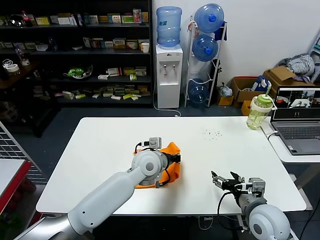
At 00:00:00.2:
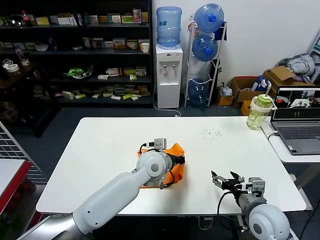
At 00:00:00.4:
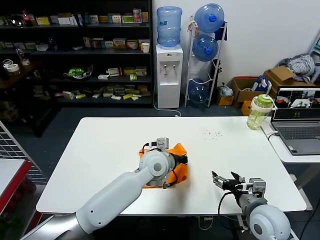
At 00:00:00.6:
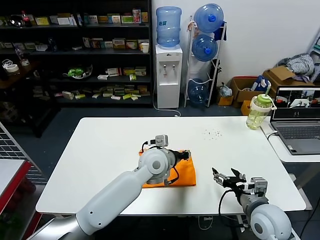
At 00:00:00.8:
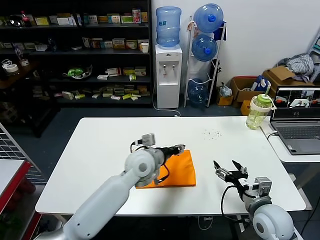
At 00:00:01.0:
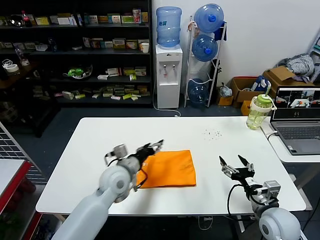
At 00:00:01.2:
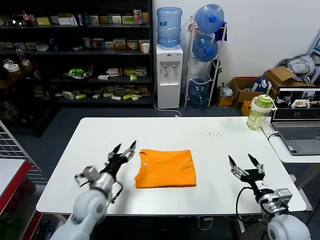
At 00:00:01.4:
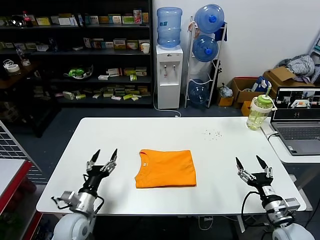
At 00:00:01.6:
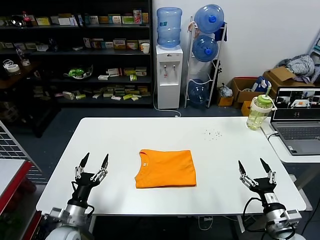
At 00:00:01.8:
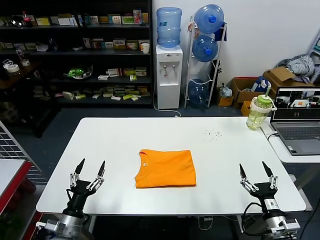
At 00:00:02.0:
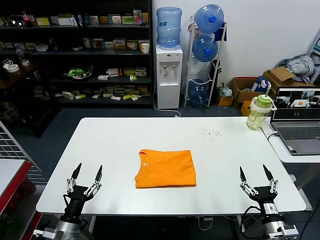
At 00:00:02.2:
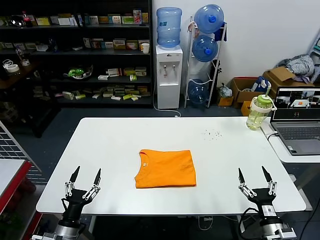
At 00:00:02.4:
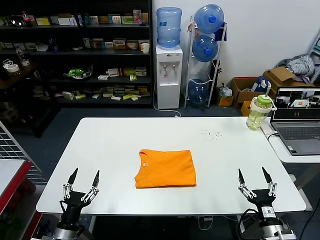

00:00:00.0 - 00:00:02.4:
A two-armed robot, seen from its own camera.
Task of the whole recording: fold and organize the clothes.
00:00:00.0 - 00:00:01.2: The right gripper moves to the right, approximately 5 cm. Meanwhile the left gripper goes roughly 20 cm to the left, backward and downward, and opens up.
00:00:01.2 - 00:00:02.4: The left gripper shifts some 20 cm backward, to the left and downward; the right gripper moves backward and downward, approximately 10 cm.
